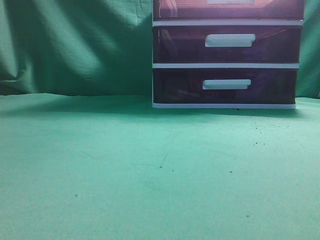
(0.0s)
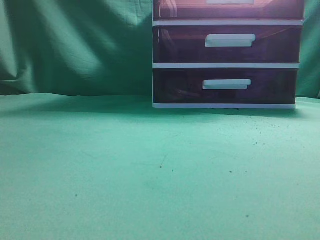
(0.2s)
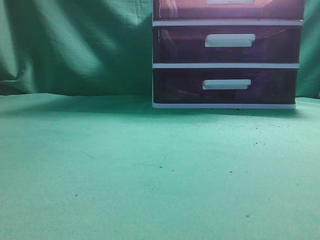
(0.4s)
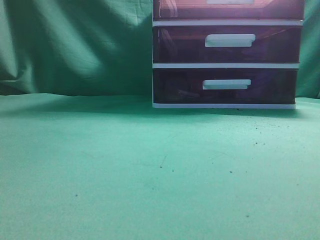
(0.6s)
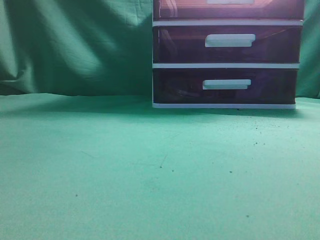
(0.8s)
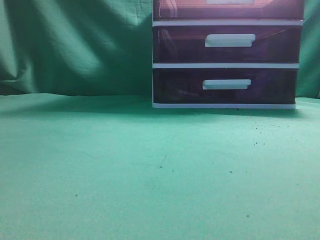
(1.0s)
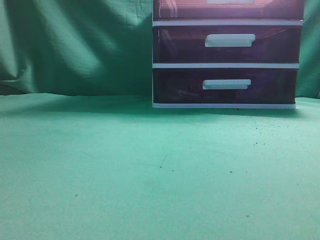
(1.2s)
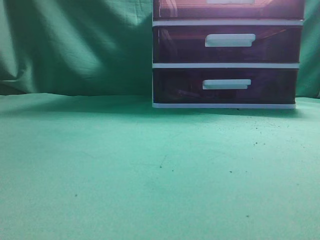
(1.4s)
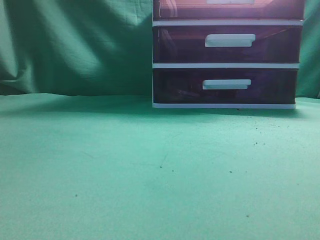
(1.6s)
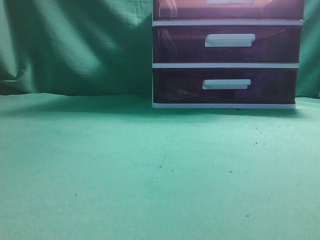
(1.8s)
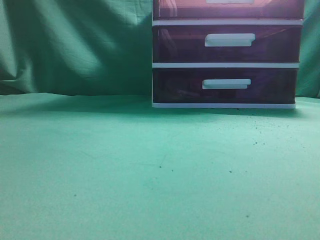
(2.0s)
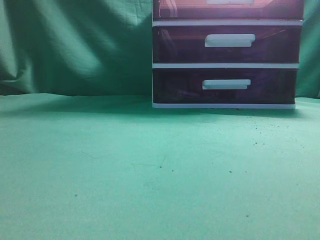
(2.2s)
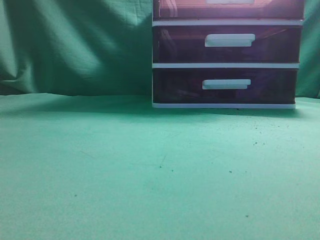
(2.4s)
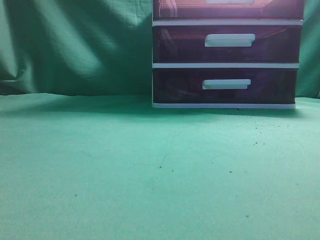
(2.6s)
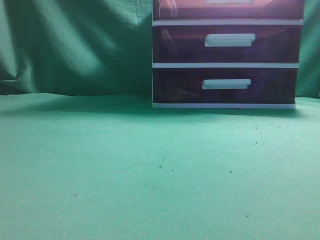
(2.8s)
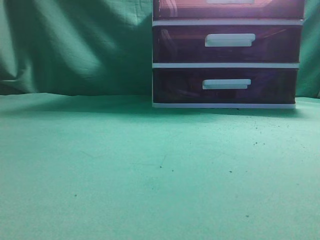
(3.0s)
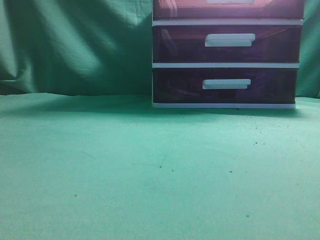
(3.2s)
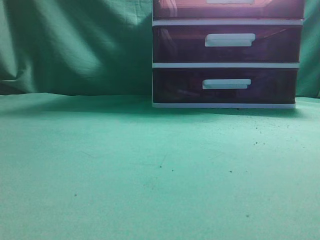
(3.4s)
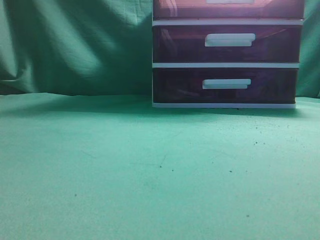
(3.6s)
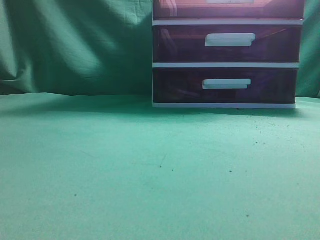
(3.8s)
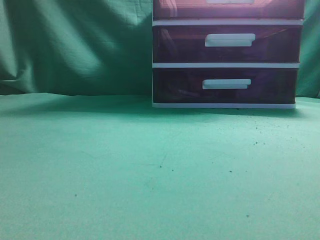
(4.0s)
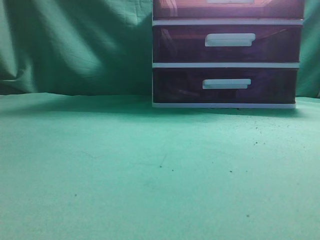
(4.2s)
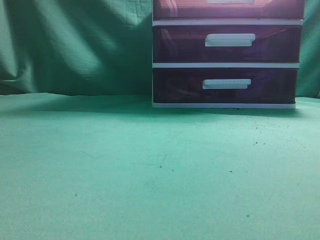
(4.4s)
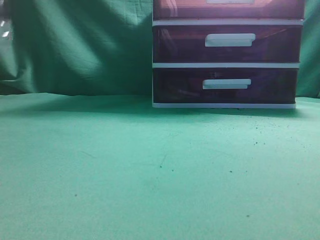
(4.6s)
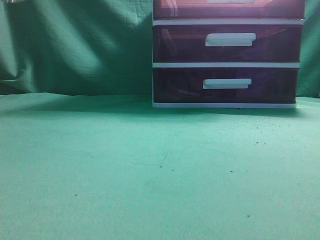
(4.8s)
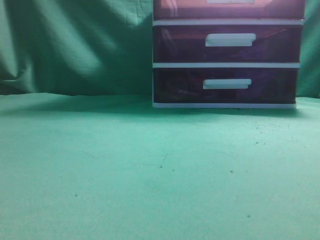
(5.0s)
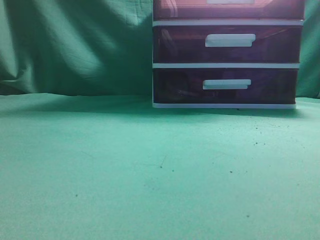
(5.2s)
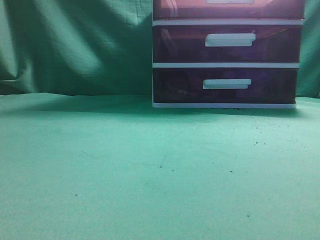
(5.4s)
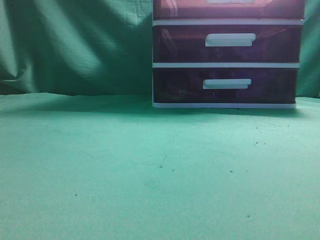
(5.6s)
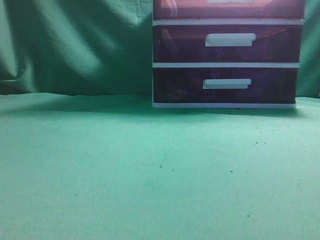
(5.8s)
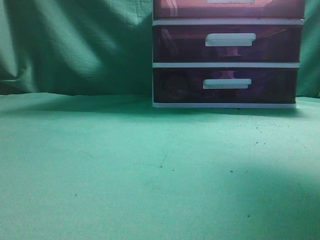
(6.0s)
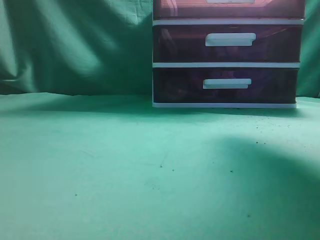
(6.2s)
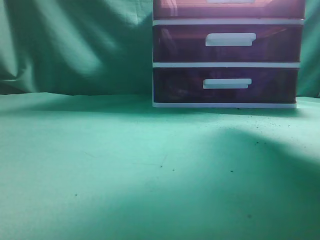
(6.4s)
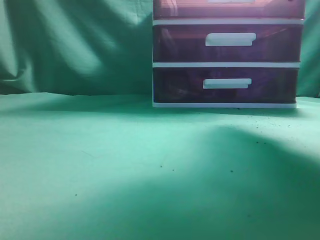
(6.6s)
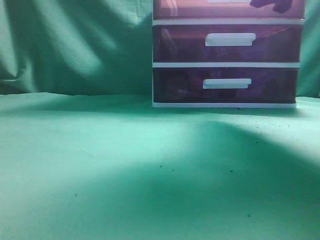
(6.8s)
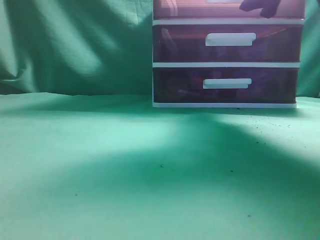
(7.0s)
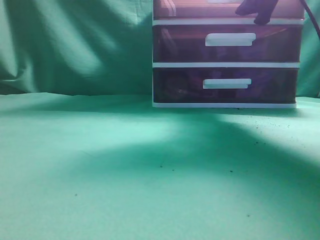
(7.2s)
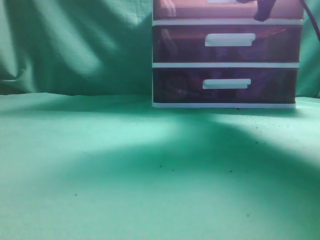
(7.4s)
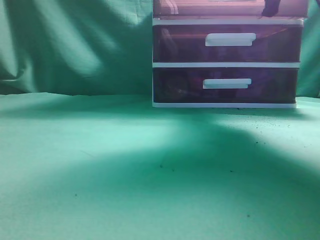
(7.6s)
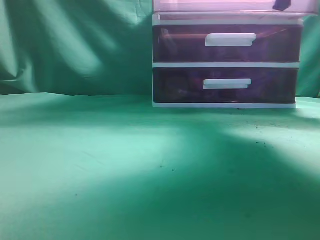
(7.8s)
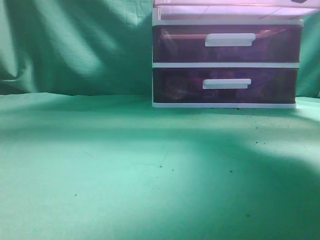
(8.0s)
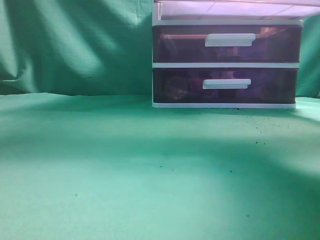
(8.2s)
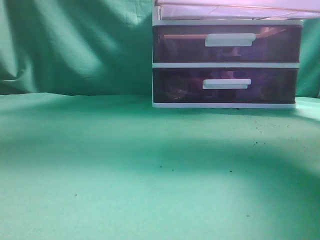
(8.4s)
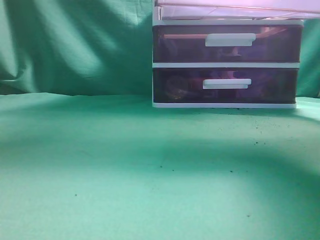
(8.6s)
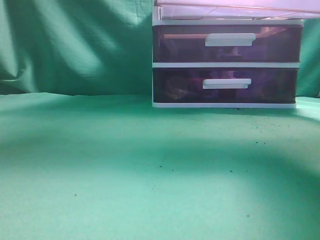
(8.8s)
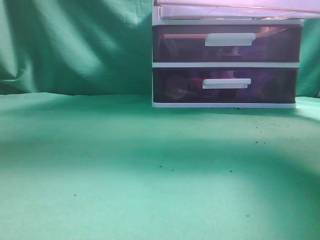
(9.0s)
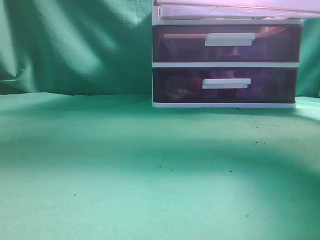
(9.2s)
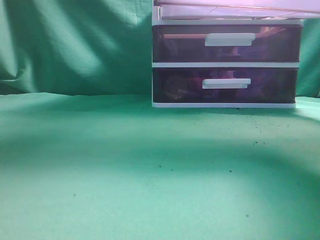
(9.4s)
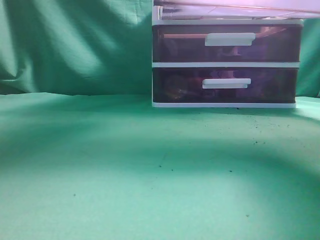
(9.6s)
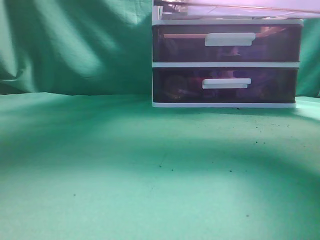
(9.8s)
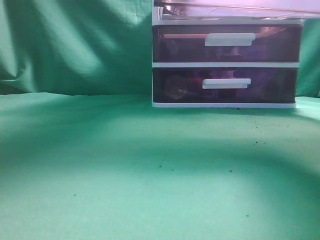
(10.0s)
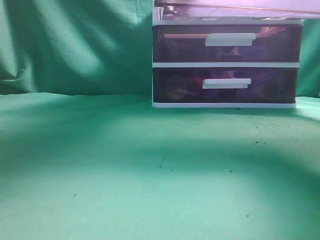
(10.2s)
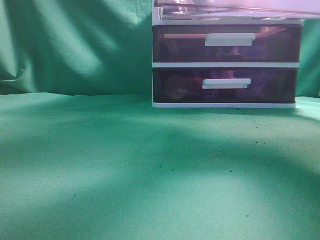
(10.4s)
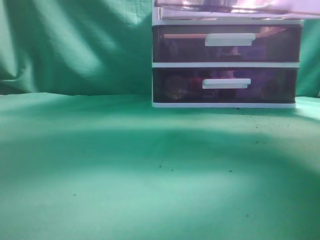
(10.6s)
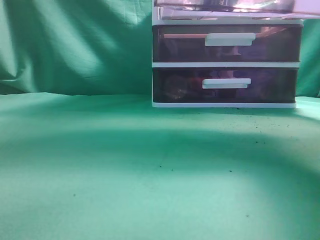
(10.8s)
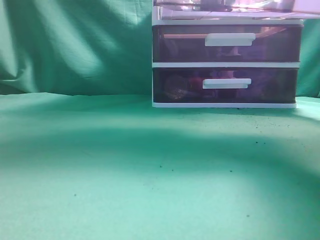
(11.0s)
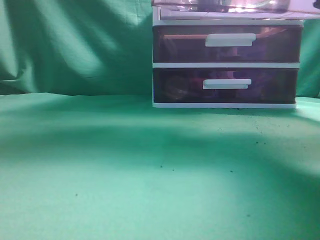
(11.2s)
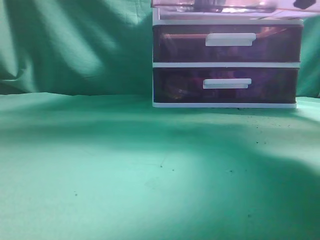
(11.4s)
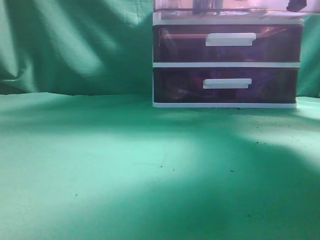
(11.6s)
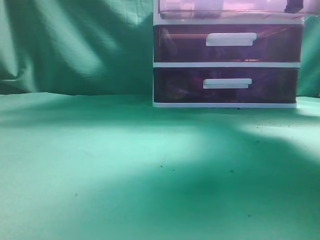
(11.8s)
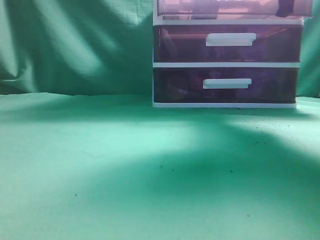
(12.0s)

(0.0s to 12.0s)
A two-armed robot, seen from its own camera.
Task of the whole recording: place the water bottle into the drawer.
Step, 0.0s - 8.4s: Open the drawer.
Step, 8.6s - 10.8s: Place the water bottle inside the drawer.
4.4s - 6.0s: The right gripper heads forward and upward, covering roughly 30 cm, and opens up.
6.0s - 7.6s: The right gripper shifts about 15 cm forward and downward, and opens and closes again.
7.6s - 9.0s: The right gripper travels backward by about 15 cm. Meanwhile the left gripper shifts approximately 20 cm to the right, upward and forward.
9.0s - 10.4s: The left gripper goes about 25 cm to the right, downward and forward, and opens up.
10.4s - 12.0s: The left gripper heads to the left, backward and upward, covering roughly 30 cm, and closes its fingers. The right gripper shifts approximately 15 cm forward.

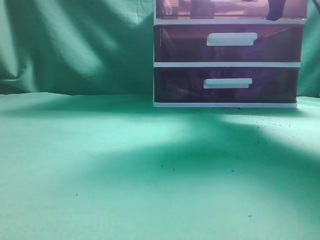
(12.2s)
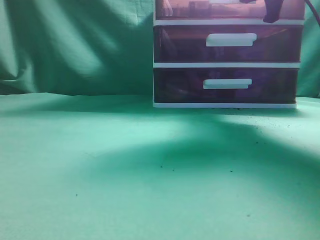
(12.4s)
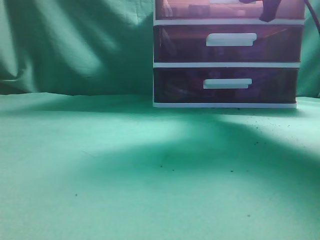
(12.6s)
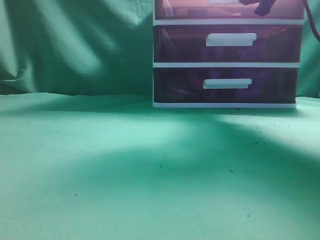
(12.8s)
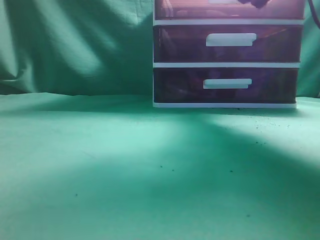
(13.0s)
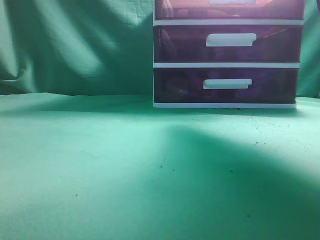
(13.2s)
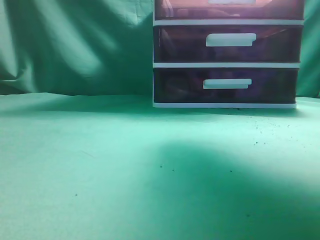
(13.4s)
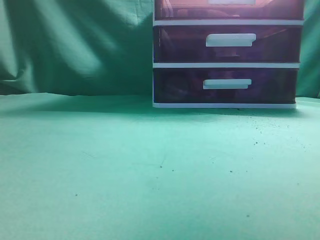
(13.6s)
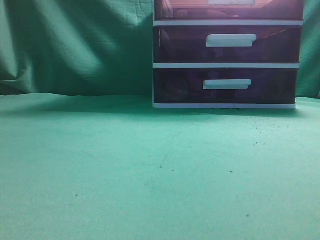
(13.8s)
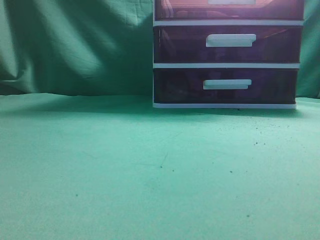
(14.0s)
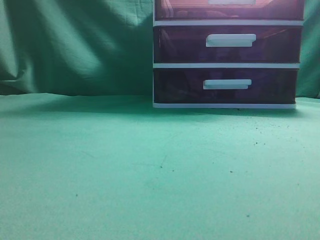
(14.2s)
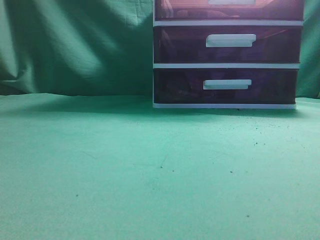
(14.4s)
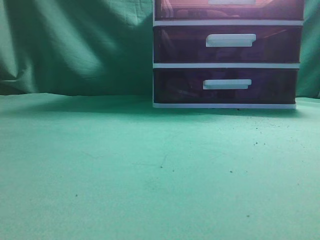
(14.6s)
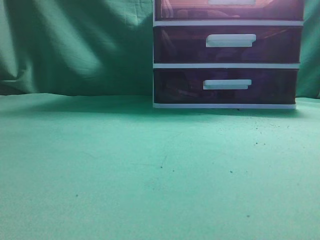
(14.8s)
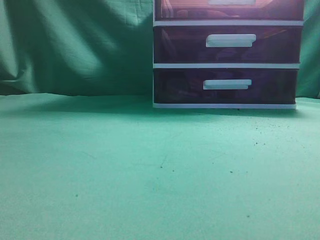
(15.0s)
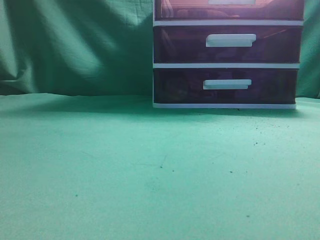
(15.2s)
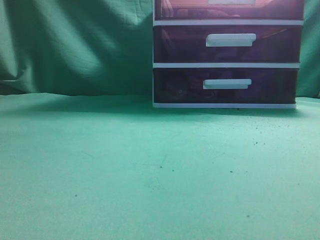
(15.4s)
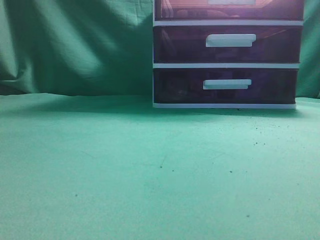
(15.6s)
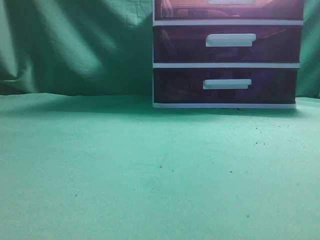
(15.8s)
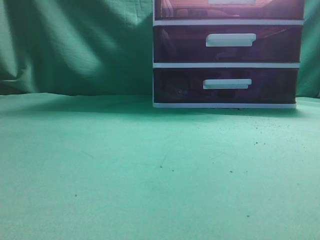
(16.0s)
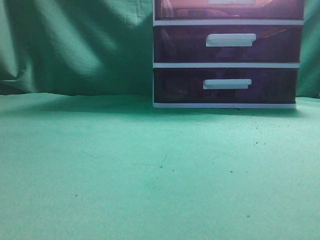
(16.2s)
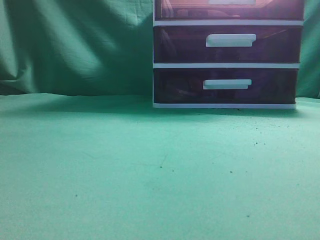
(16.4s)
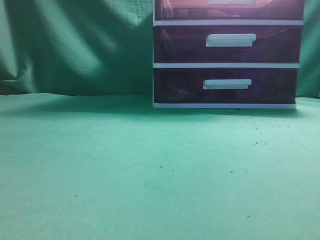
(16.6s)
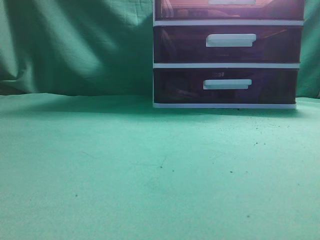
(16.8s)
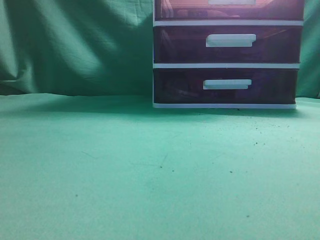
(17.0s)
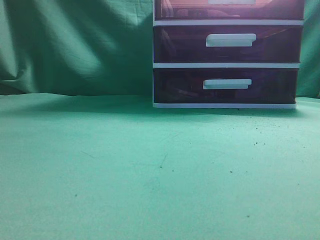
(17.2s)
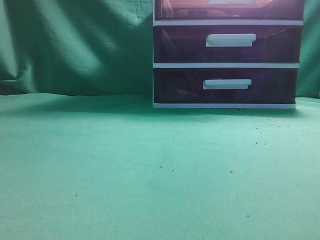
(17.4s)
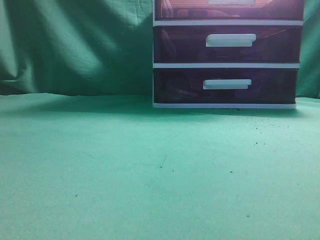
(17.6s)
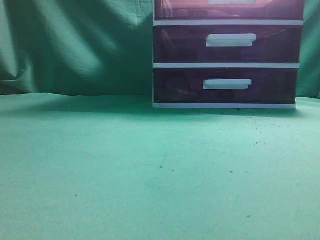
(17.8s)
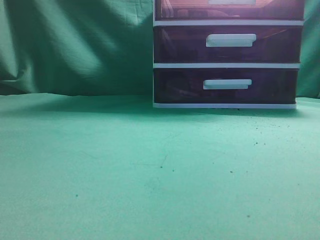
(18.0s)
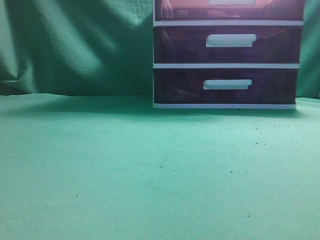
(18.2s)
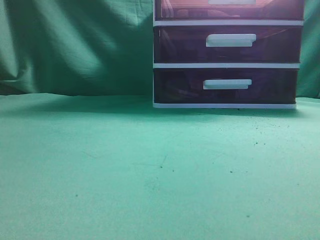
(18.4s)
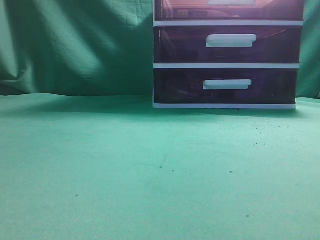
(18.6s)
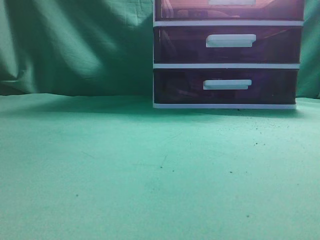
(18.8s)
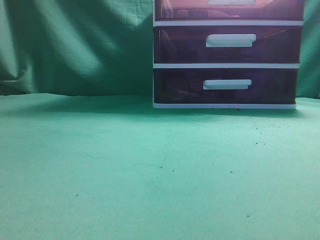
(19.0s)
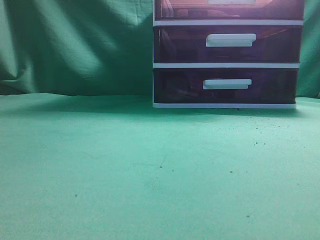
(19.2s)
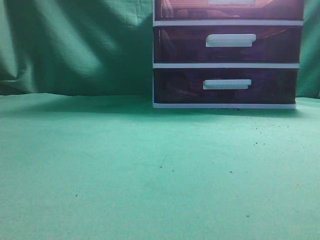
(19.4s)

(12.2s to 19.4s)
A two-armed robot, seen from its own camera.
Task of the whole recording: place the water bottle into the drawer.
12.2s - 13.6s: The right gripper travels backward and upward by roughly 15 cm, and opens its fingers.
13.6s - 15.0s: The right gripper goes some 25 cm backward, and closes; the left gripper goes some 20 cm downward and backward.
